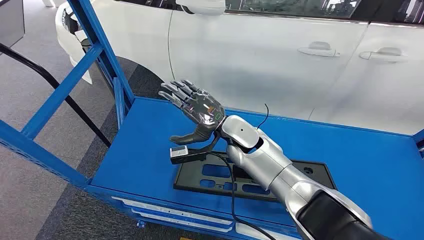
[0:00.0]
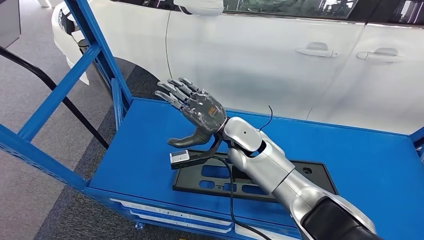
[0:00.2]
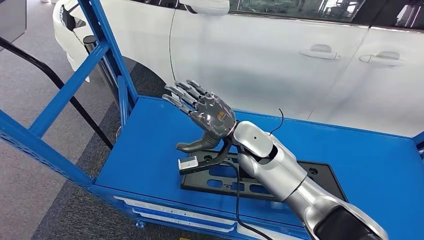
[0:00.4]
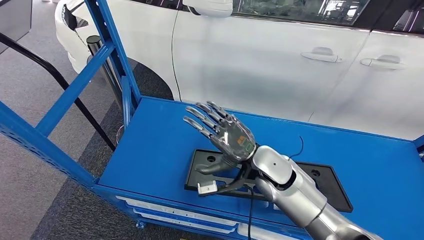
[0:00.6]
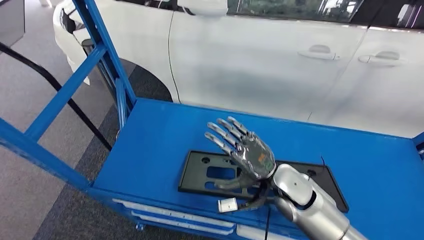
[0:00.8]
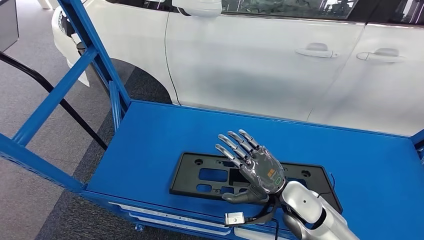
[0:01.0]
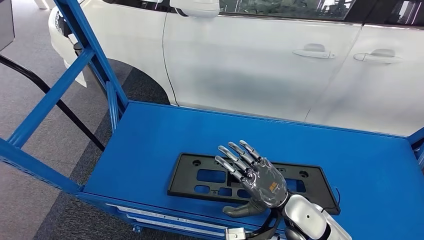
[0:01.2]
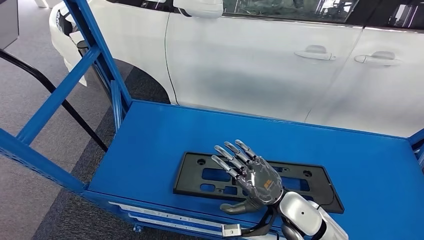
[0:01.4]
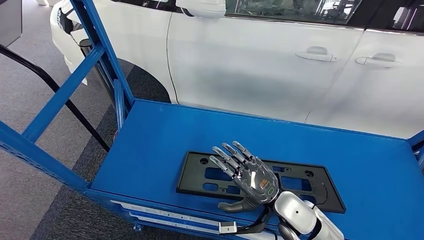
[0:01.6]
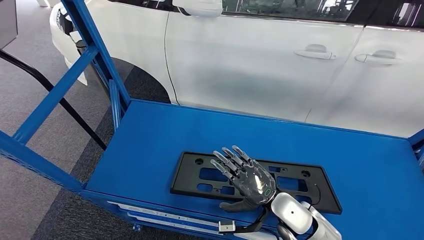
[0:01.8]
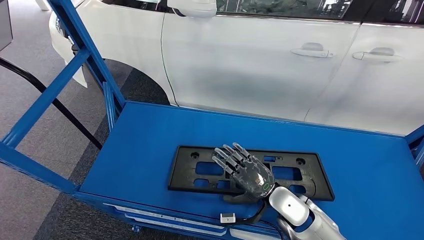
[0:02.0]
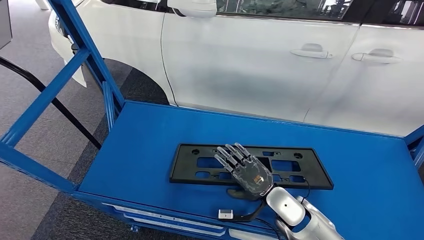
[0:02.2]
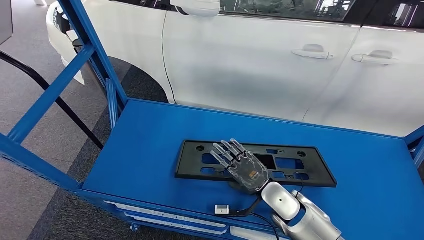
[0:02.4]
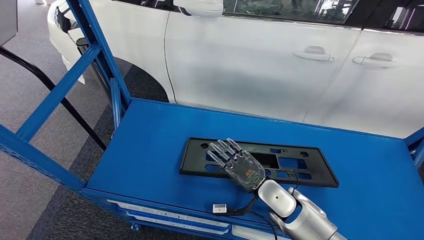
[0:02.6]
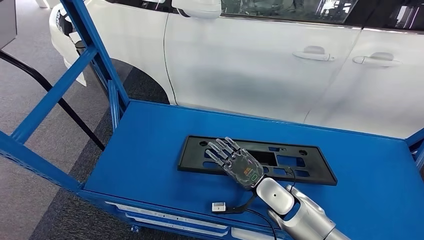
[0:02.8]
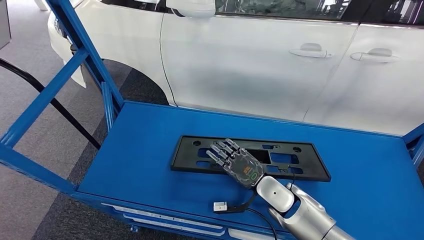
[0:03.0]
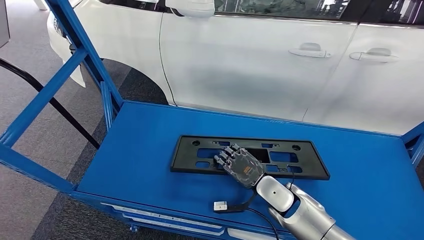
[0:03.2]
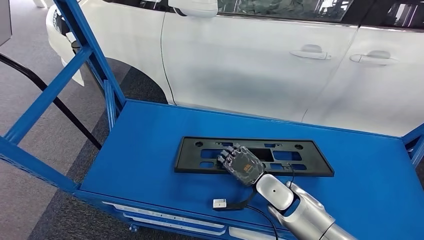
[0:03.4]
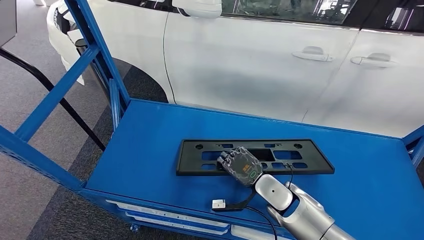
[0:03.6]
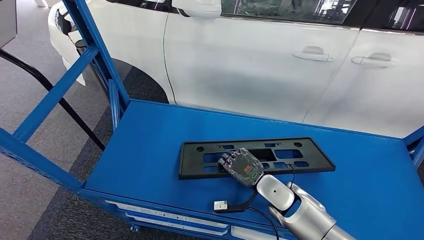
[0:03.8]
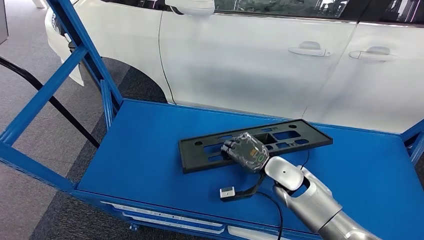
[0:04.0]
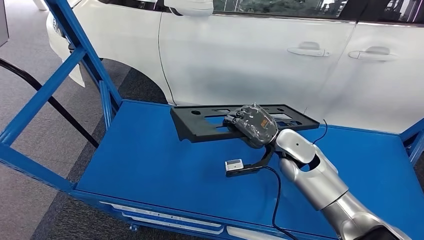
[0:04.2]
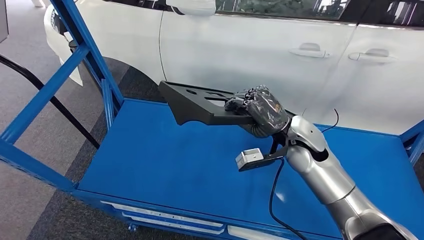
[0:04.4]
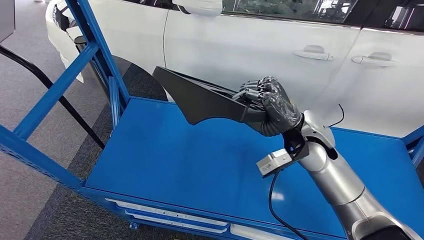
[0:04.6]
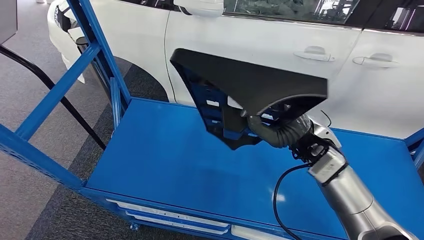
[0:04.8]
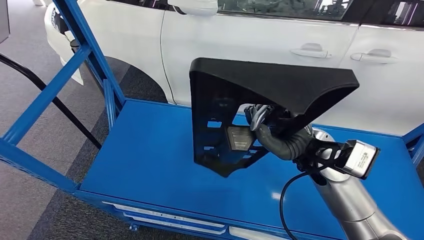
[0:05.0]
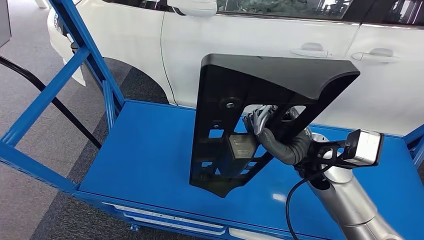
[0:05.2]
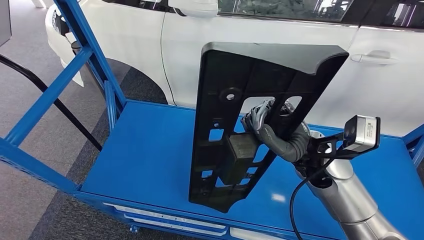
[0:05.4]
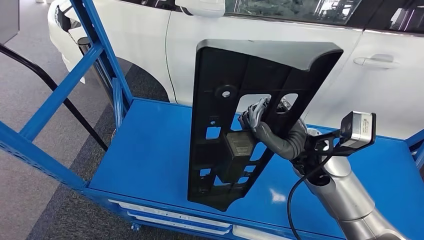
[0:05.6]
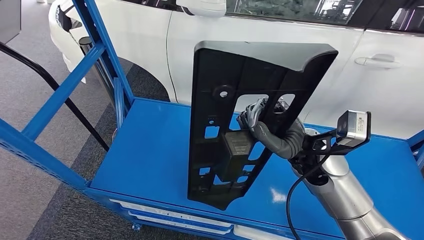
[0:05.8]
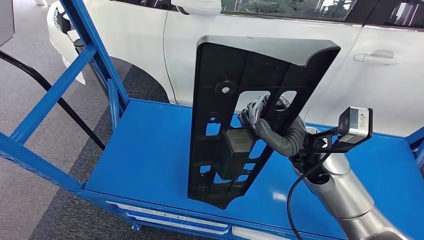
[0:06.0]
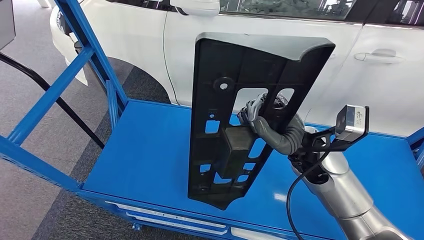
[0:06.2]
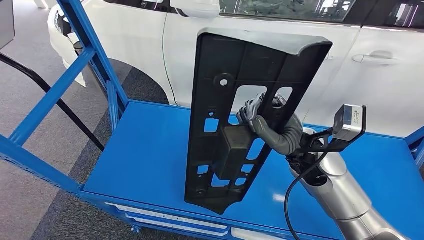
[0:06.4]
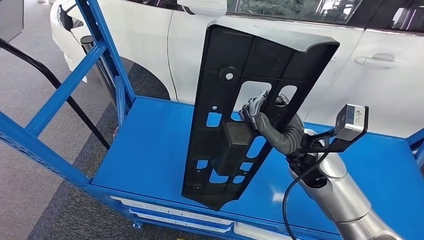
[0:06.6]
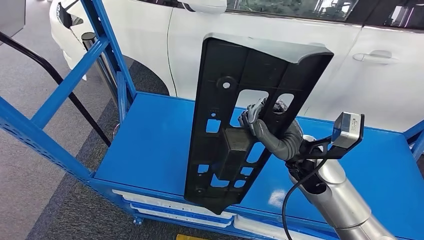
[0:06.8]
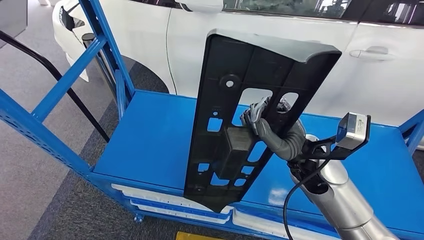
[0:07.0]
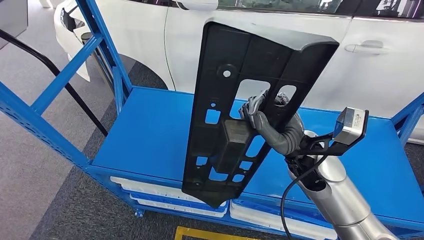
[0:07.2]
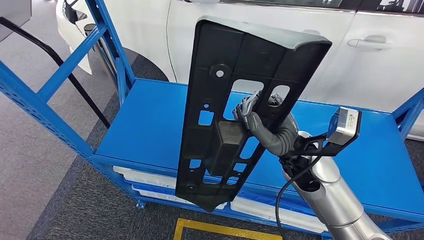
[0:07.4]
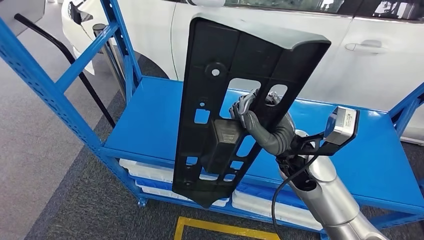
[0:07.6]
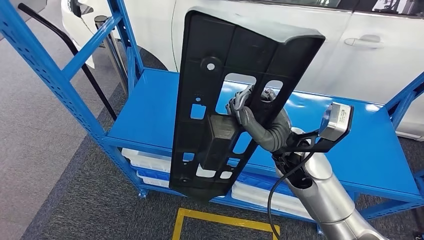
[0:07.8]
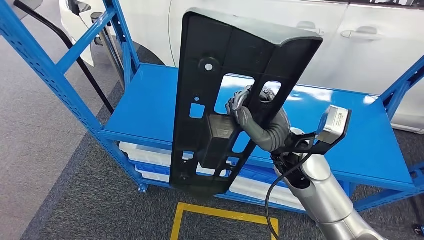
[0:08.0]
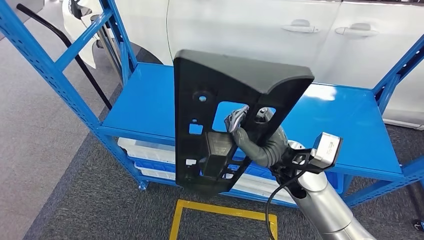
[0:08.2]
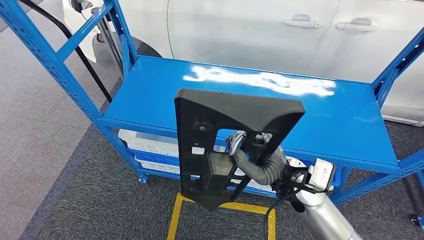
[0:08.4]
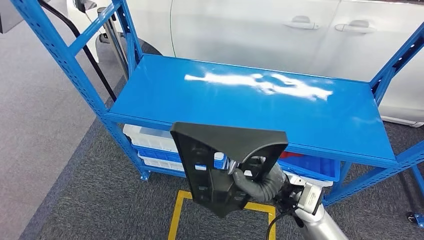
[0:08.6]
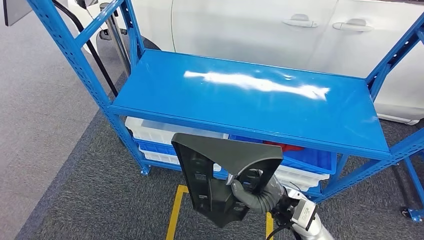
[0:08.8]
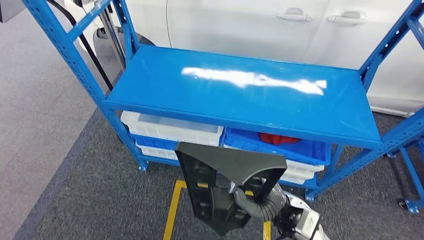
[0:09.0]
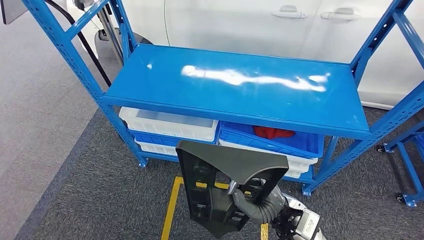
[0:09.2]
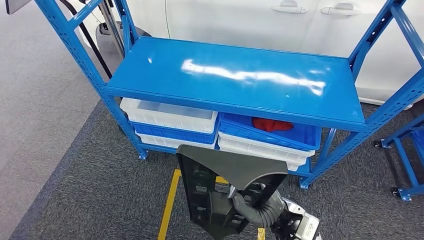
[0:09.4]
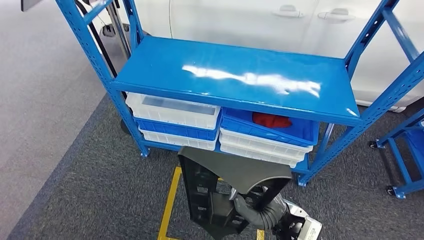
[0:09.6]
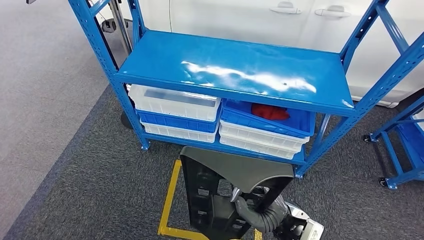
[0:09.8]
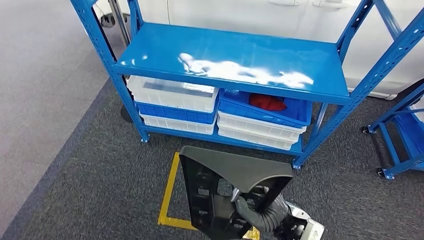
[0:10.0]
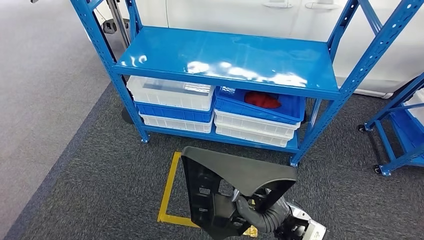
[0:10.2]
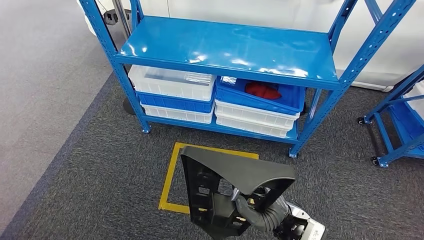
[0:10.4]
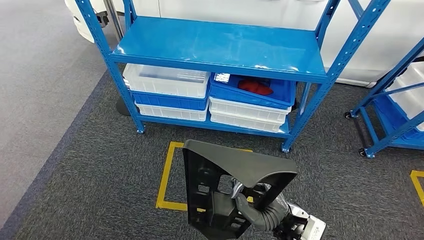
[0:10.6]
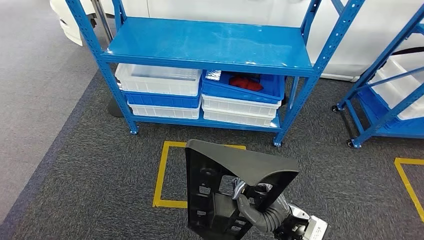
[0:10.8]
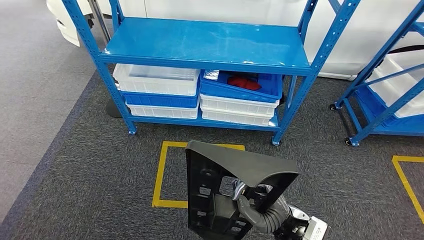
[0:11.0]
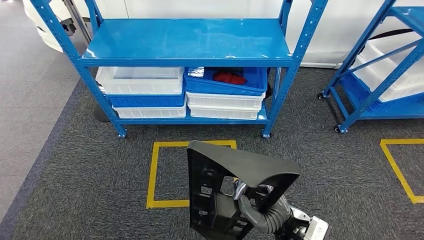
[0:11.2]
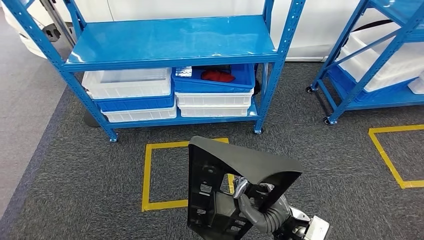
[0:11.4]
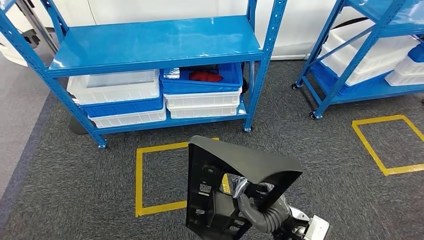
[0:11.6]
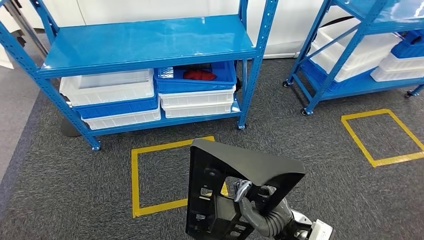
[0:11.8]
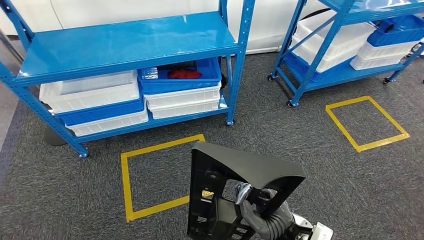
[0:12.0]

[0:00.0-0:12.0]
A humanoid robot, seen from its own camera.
Step, 0:00.0 to 0:06.2: Pick up the large material from the shelf.

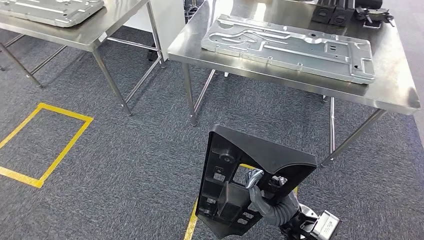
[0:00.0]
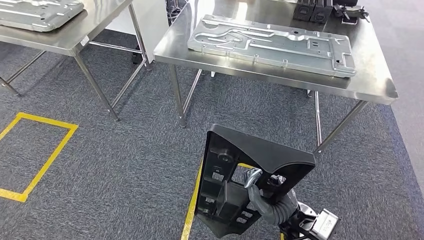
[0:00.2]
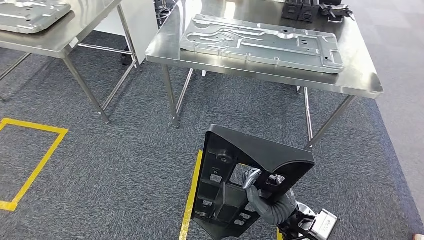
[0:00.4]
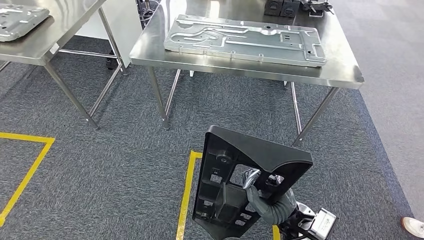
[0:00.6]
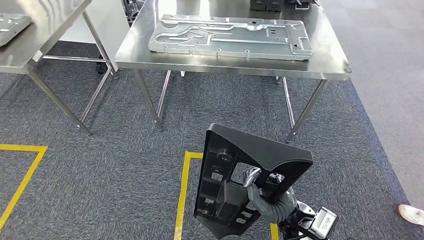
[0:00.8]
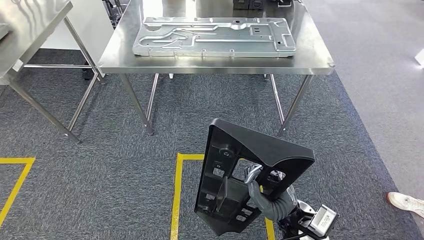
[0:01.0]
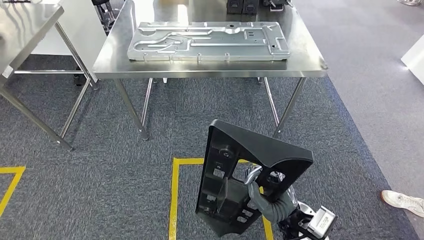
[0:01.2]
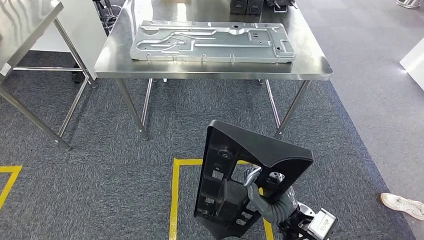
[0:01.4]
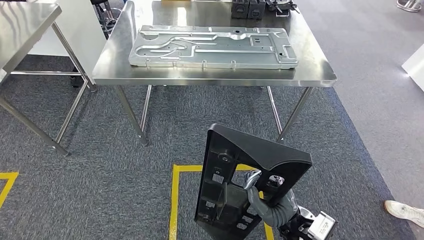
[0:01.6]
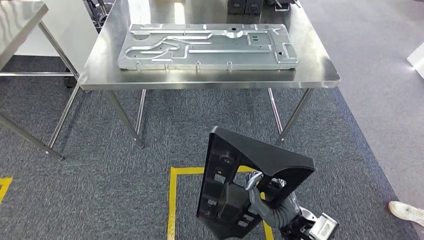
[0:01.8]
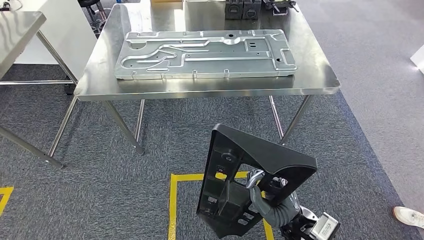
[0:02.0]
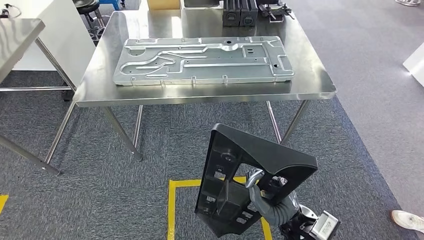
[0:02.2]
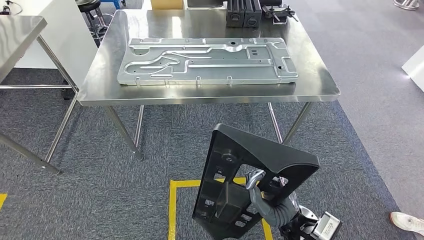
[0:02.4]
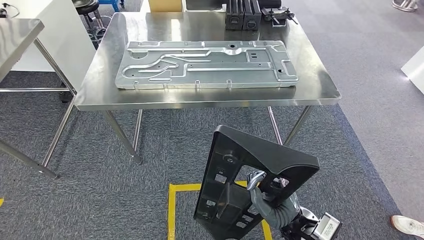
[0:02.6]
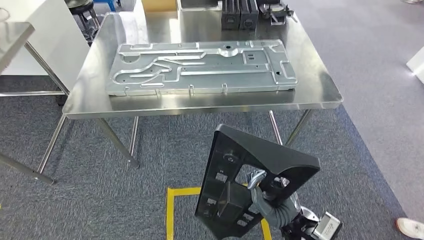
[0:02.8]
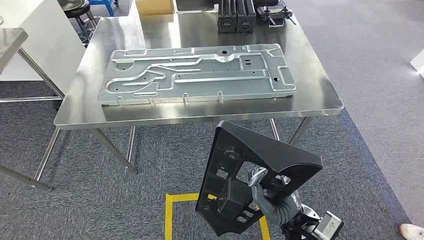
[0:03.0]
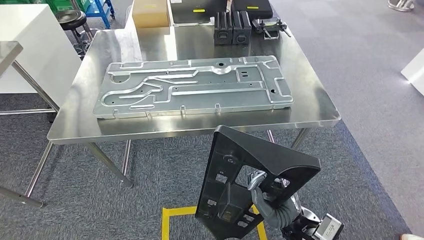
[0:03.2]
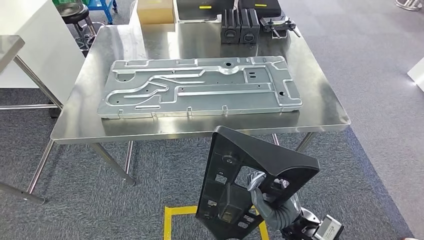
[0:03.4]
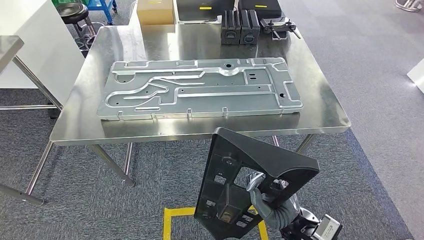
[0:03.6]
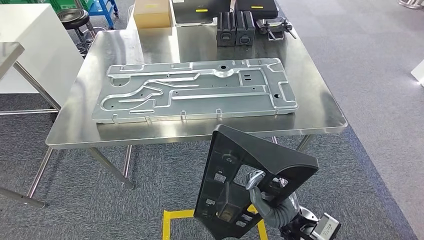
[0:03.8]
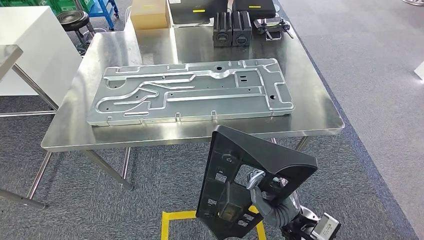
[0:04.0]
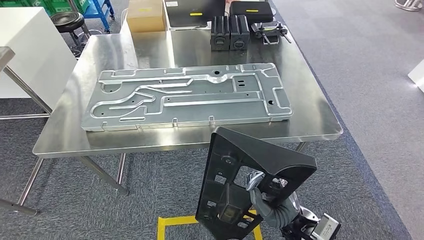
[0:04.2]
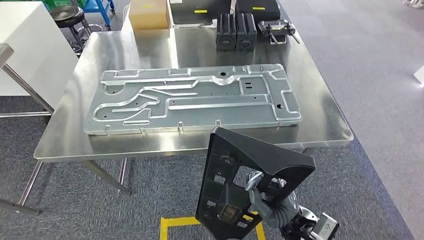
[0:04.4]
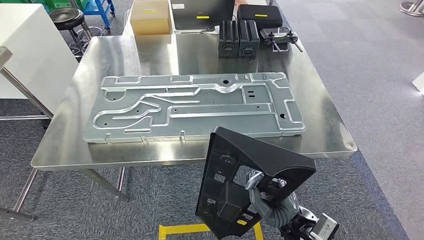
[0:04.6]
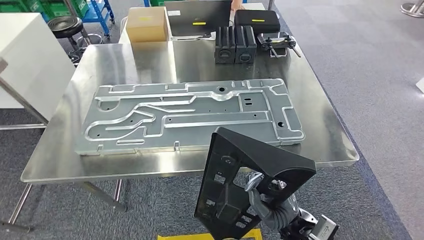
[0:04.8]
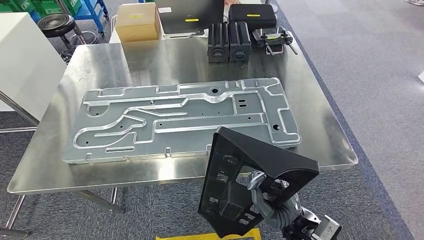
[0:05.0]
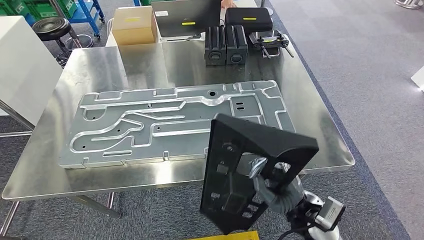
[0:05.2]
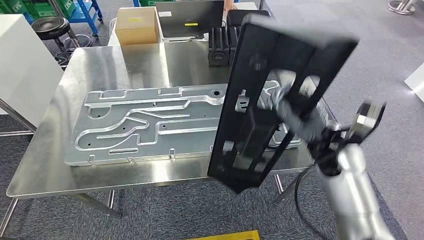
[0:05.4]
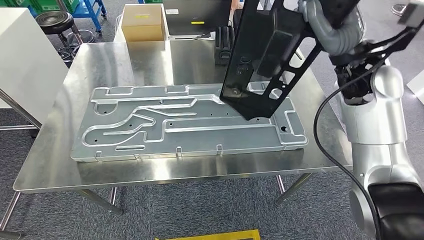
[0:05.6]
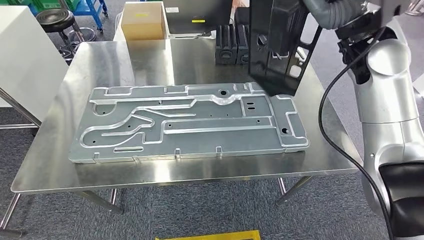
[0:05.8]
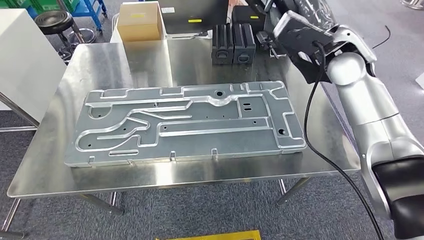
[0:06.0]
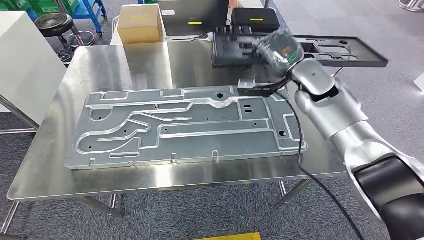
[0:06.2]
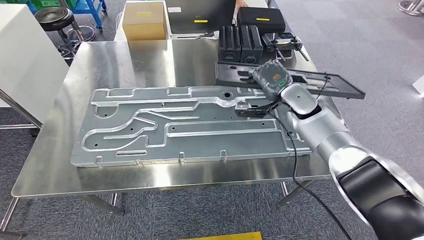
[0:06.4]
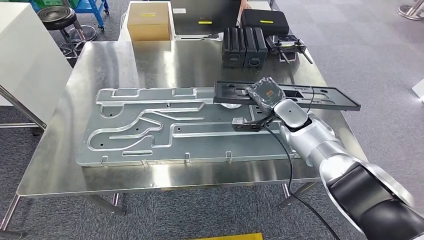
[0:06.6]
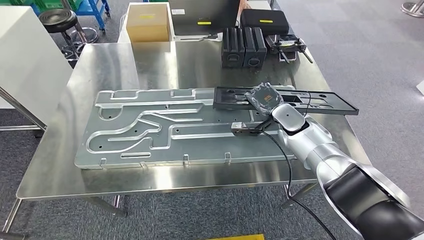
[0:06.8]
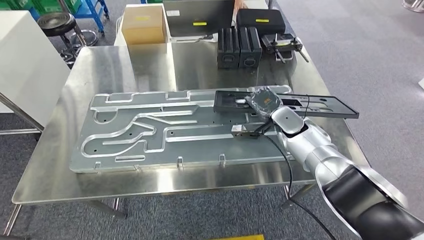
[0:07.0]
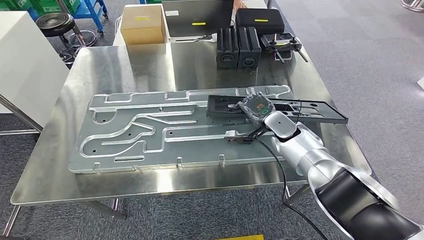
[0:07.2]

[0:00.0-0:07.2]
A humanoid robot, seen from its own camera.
Step, 0:00.0 to 0:05.8: Move the large material to the workbench.
